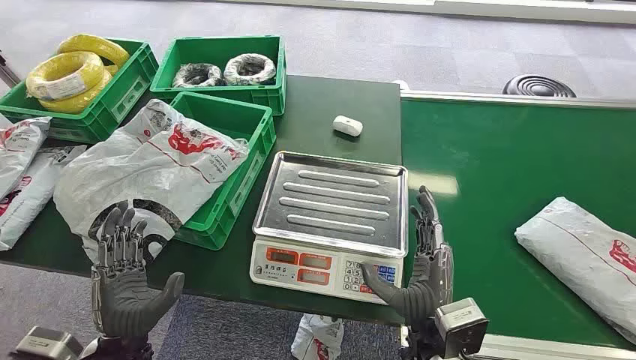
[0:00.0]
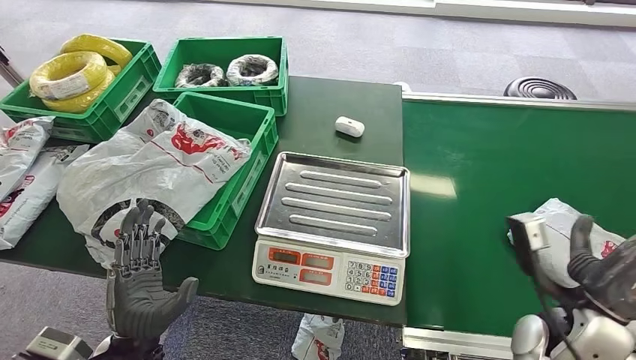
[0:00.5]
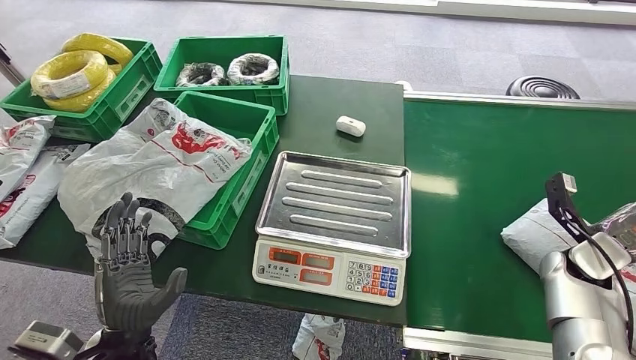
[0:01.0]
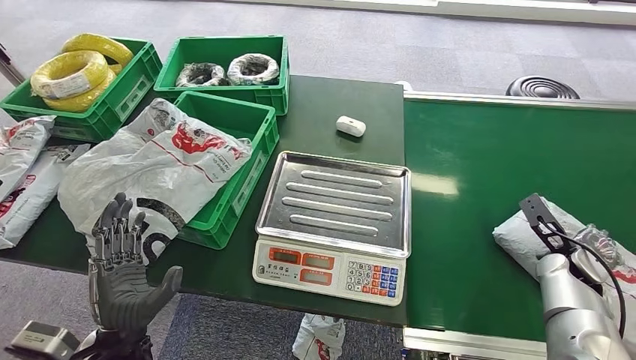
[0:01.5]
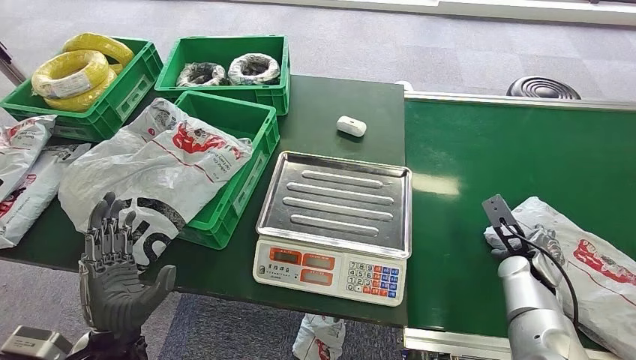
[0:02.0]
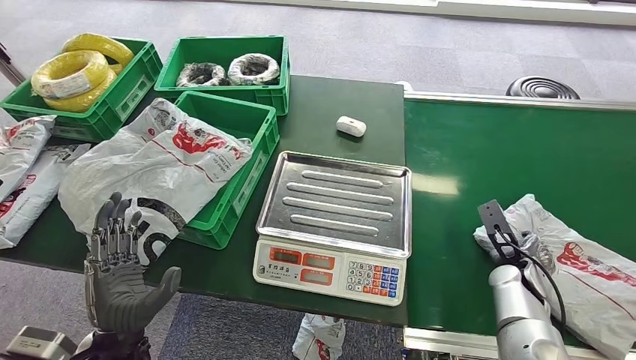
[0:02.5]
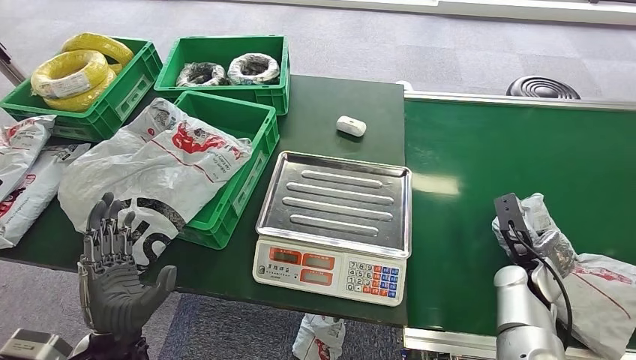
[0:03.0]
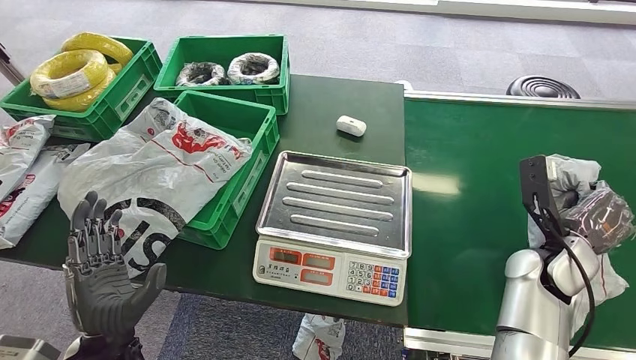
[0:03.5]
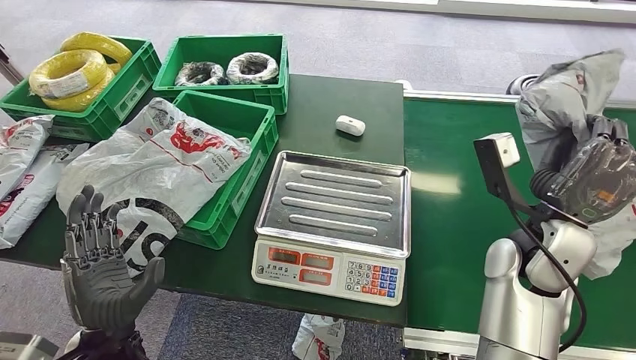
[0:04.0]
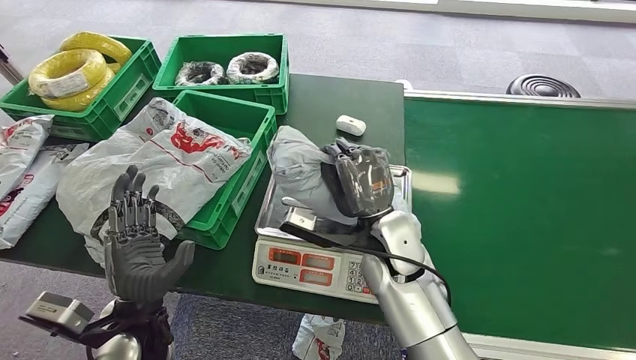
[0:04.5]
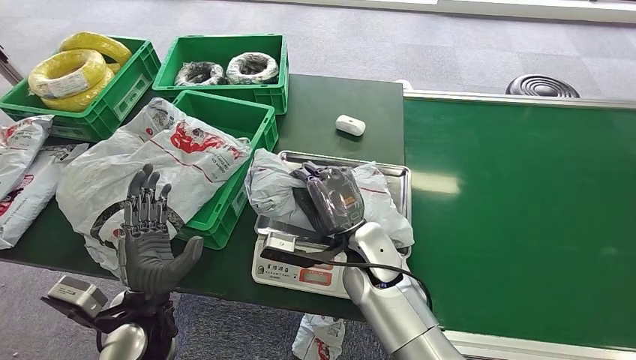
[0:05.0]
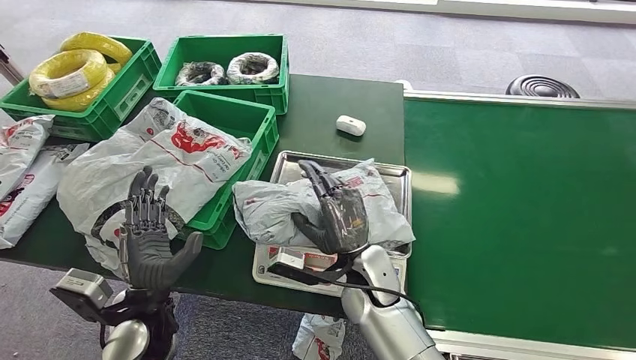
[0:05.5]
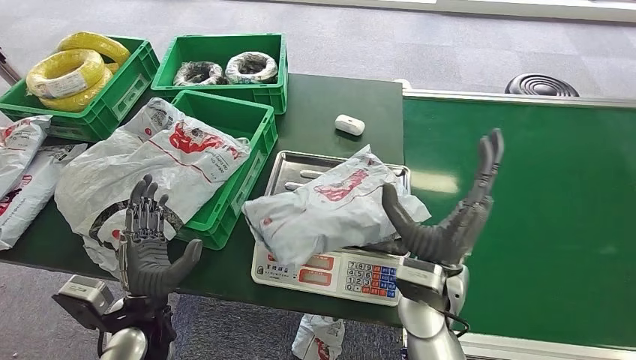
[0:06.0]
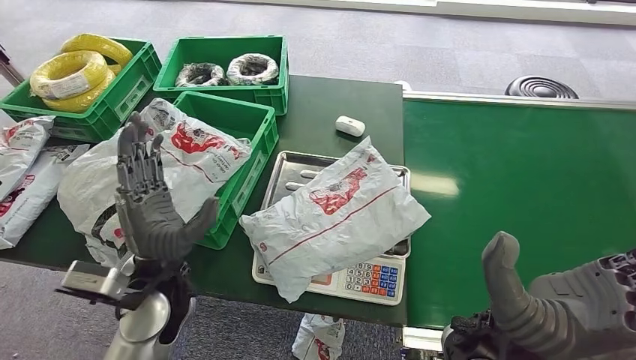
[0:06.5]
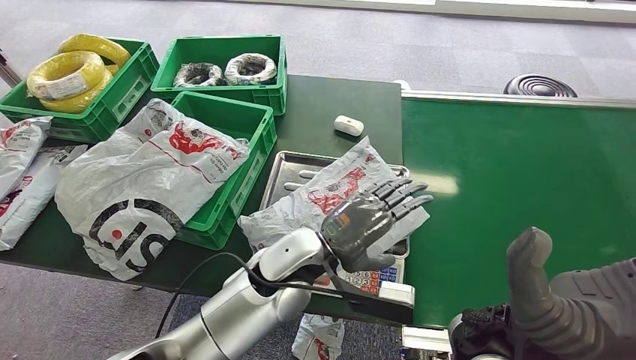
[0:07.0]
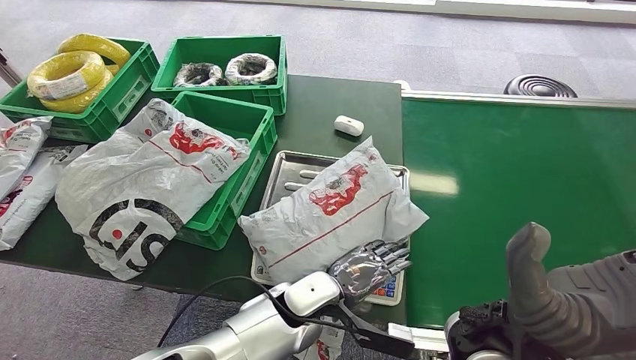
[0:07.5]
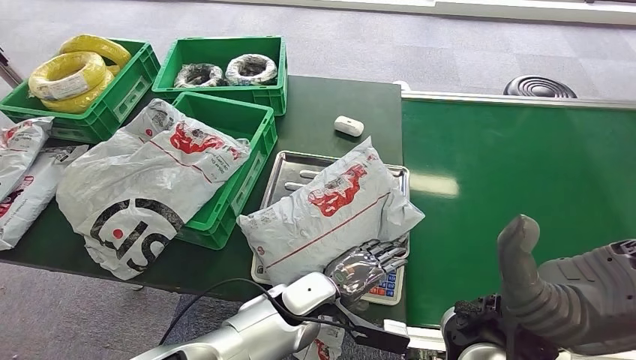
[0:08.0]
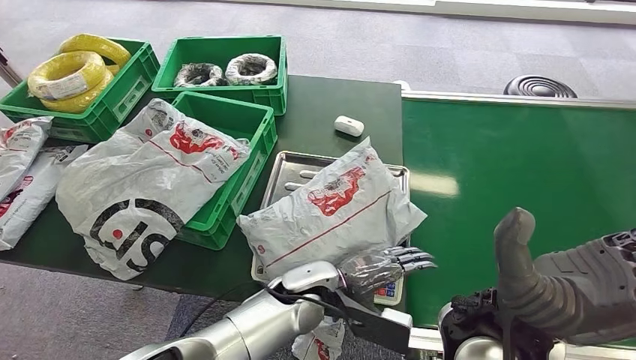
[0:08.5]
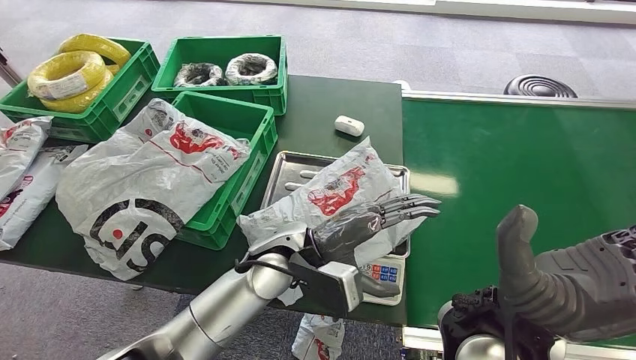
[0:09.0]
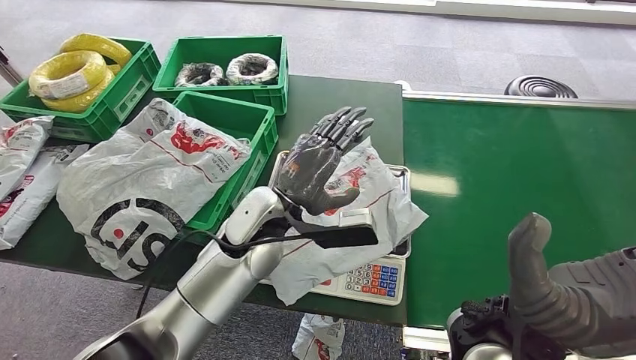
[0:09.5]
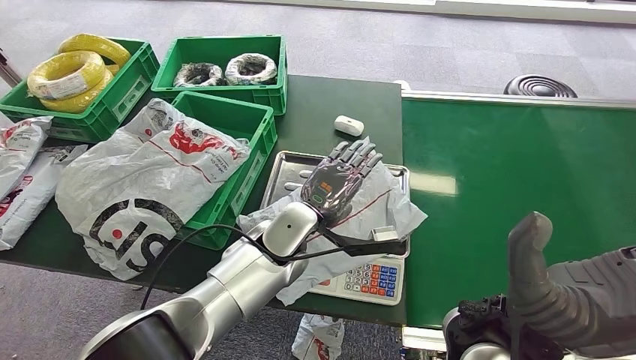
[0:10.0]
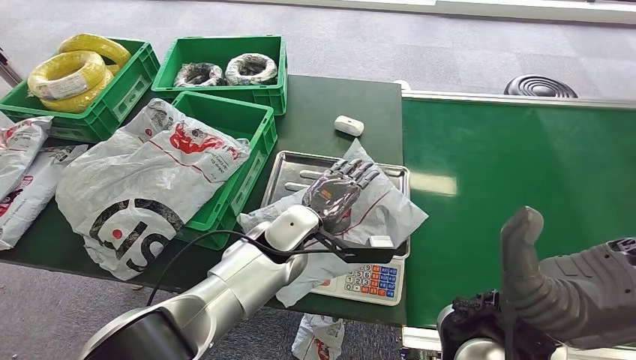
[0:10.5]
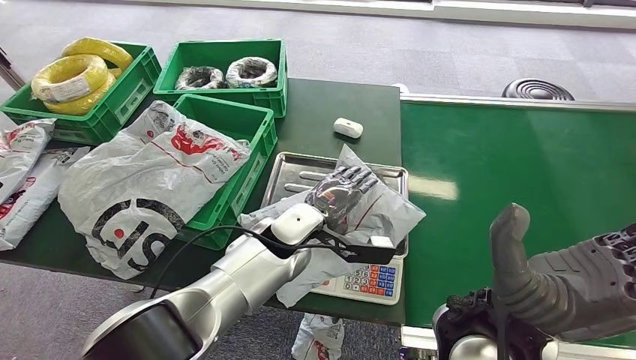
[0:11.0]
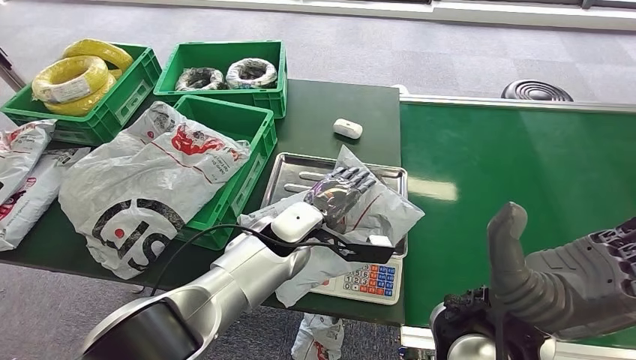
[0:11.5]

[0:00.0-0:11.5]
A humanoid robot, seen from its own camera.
Task of the whole recording: Weigh the package on the weighing device and place it in the left basket.
Step, 0:00.0 to 0:03.0: Pick up the package from the conveyor belt.
Step, 0:03.5 to 0:06.0: Place the package onto the inbound machine.
0:07.5 to 0:09.5: The left hand moves upward and forward, roughly 15 cm.

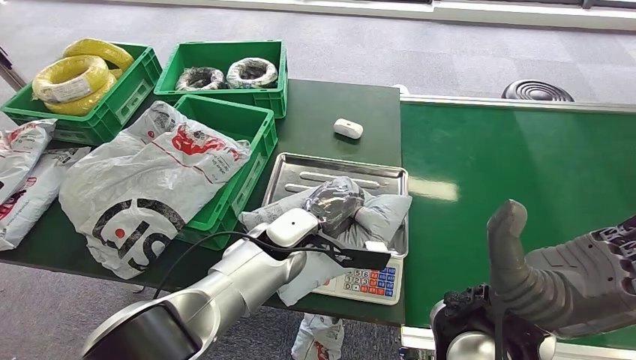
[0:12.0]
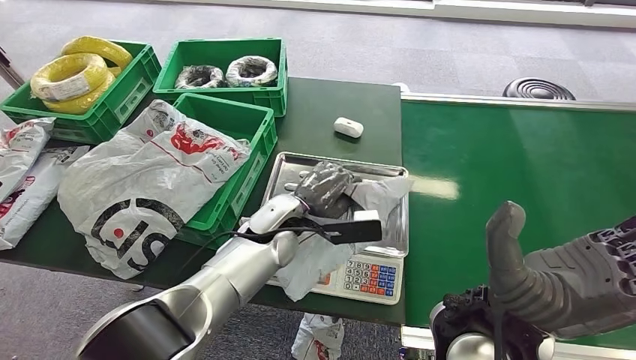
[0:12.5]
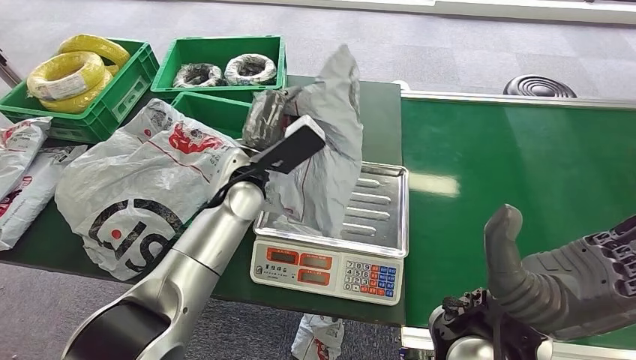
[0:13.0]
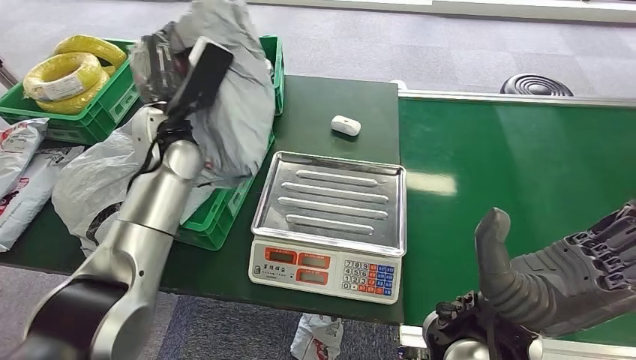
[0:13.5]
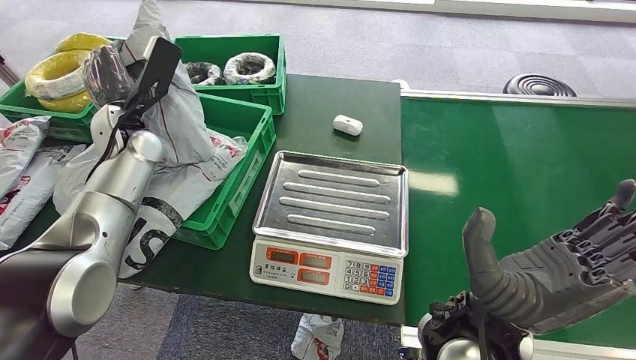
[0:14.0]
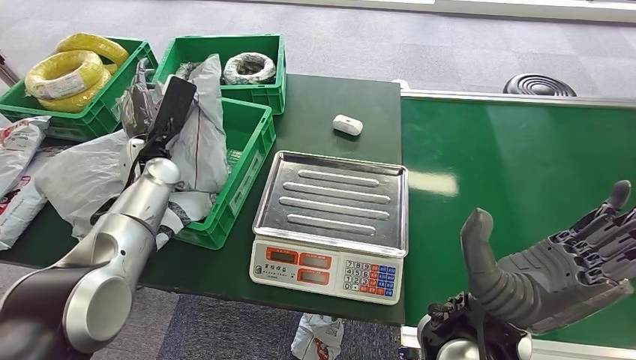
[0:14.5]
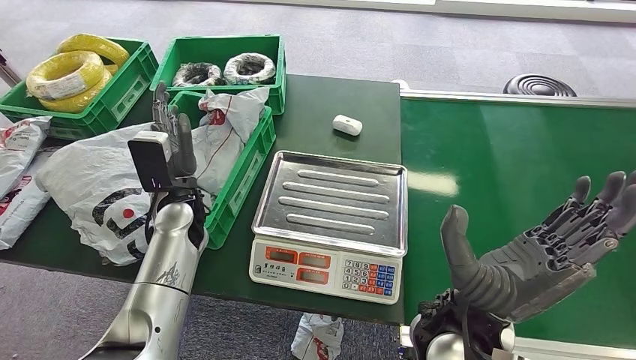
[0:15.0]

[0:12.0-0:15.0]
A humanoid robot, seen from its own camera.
Task of the whole recording: Weigh the package on the weighing device and place it in the left basket.
Step, 0:14.0 to 0:15.0: Place the package into the parcel locker.
